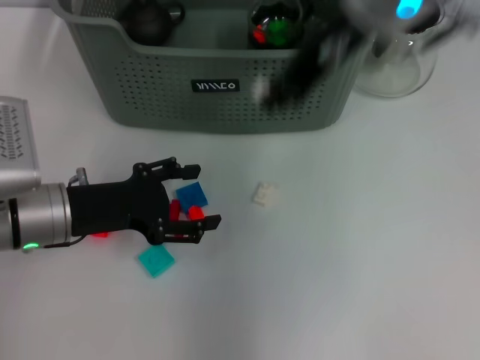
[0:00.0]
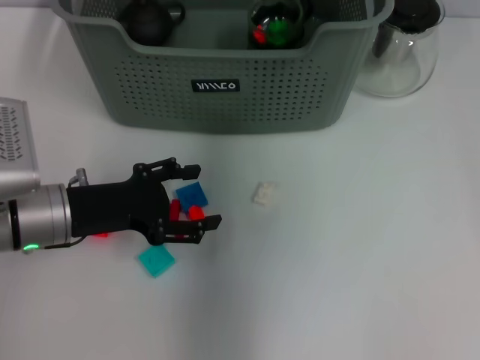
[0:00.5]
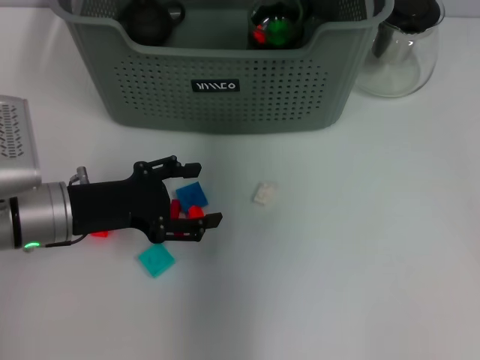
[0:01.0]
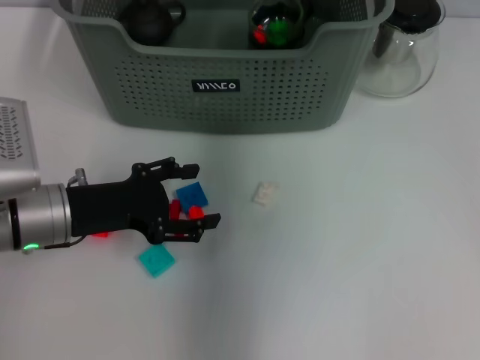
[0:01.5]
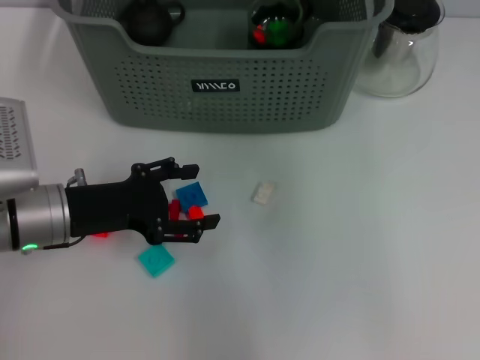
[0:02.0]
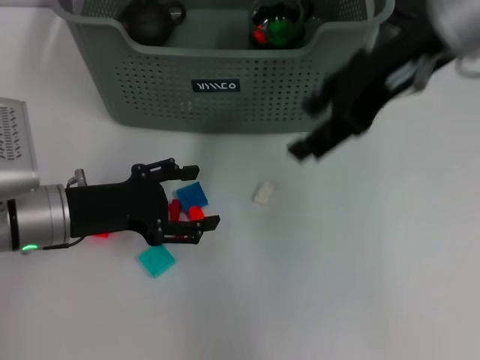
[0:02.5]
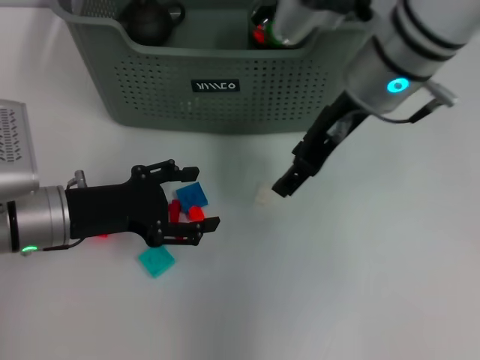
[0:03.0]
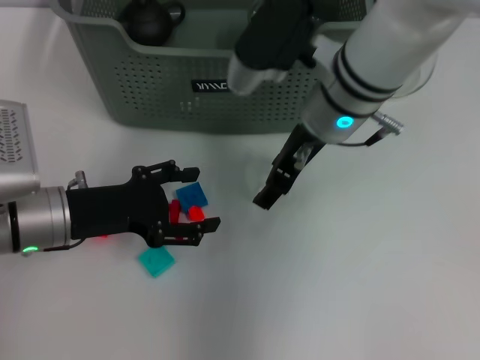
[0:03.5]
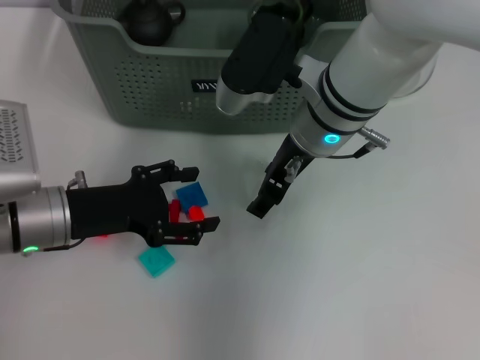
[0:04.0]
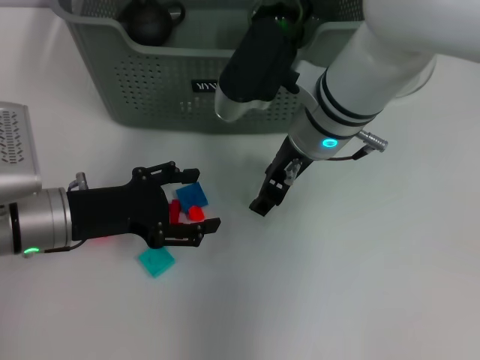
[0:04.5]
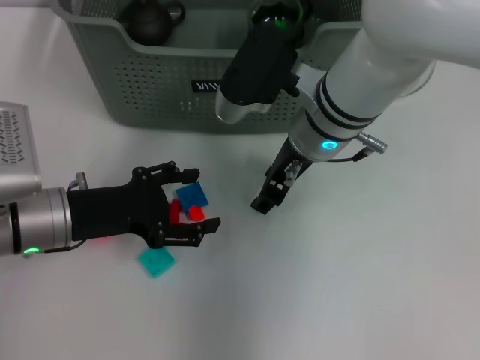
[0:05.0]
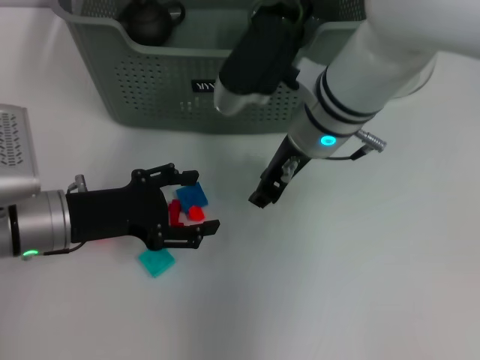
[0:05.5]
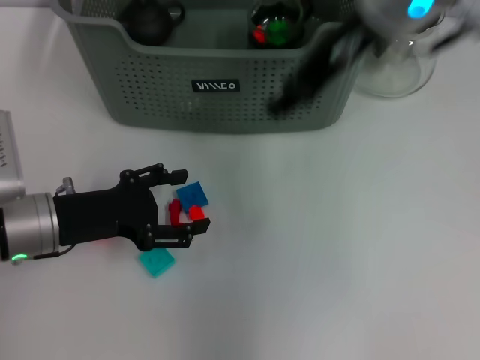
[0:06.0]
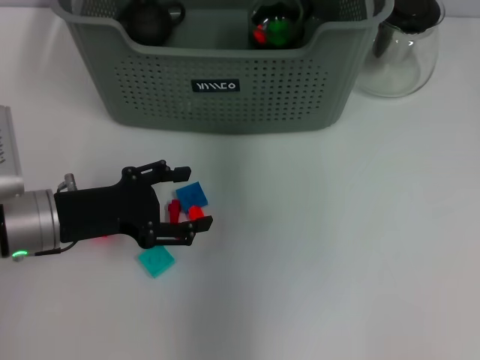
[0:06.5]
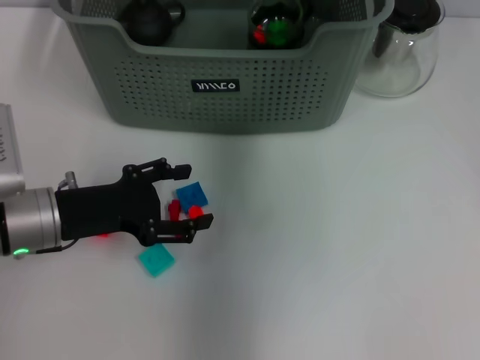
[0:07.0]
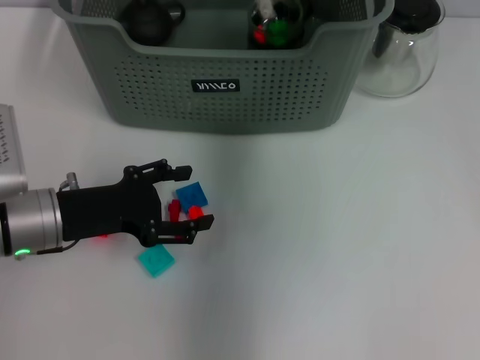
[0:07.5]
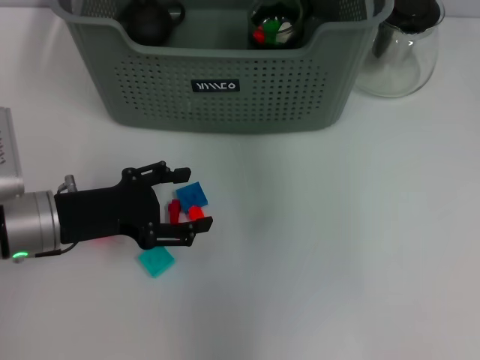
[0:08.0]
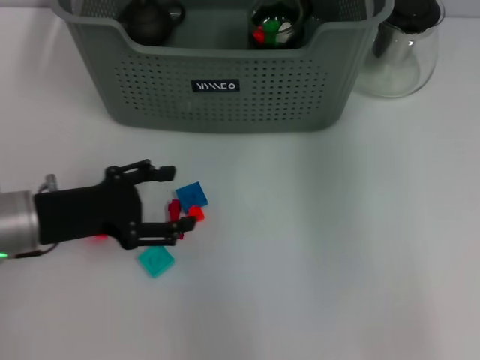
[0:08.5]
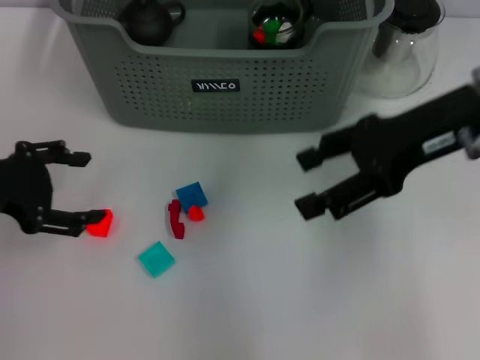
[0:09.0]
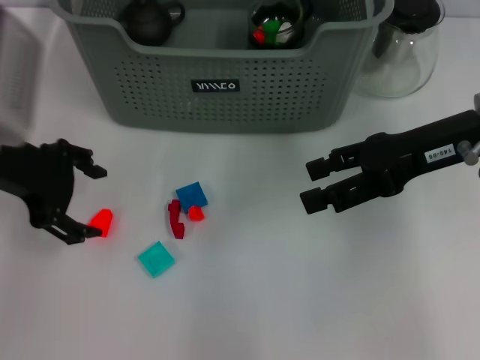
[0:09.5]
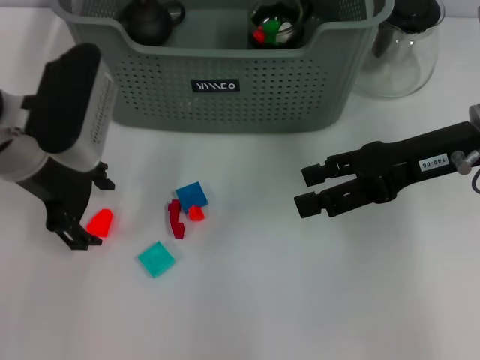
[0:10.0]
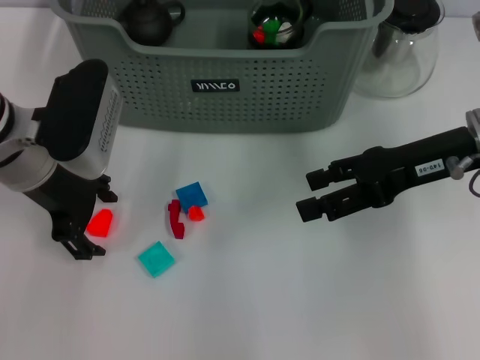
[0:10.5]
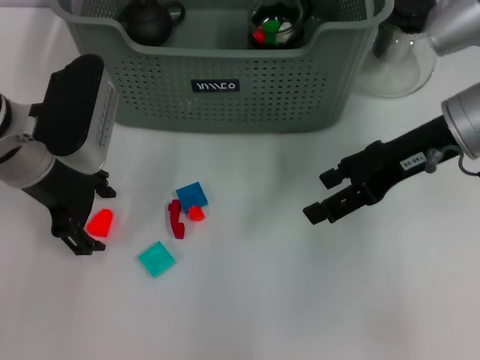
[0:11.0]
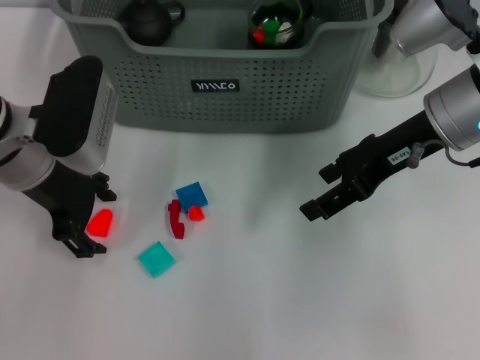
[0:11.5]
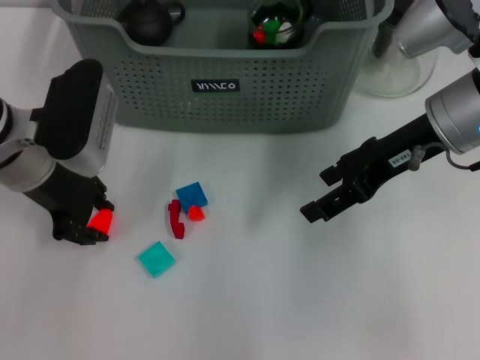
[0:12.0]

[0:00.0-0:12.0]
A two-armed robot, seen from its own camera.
Task of the whole recording: pick up the teacup on the table and place it into the storage bin, pick up the block on the table and place it into the storage bin.
Step, 0:00.0 to 0:01.0: Place the white block in the storage box with right gripper.
Step, 0:01.5 to 0:04.5: Grasp the white block with right gripper.
Step, 0:05.0 to 0:07.0: Place the white block in the storage box with right gripper.
Step, 0:08.0 to 0:12.0: Grasp the orange block with left gripper.
0:00.0 to 0:02.0: The right gripper shifts about 10 cm to the right and upward, goes forward and returns, some 10 cm each way, and opens its fingers.
0:02.0 to 0:04.0: The right gripper goes about 20 cm downward and to the left.
0:04.0 to 0:06.0: The right gripper goes approximately 15 cm upward, and closes.
0:06.0 to 0:08.0: The right gripper moves up and down over roughly 10 cm, changing direction 2 times.
0:08.0 to 0:10.0: The left gripper heads upward and forward, covering about 10 cm. The right gripper moves downward, backward and to the right, approximately 20 cm, and opens up.
0:10.0 to 0:12.0: The left gripper closes up.

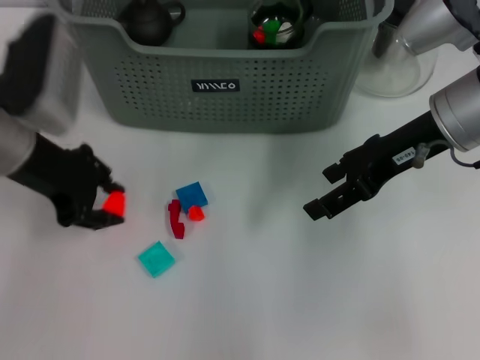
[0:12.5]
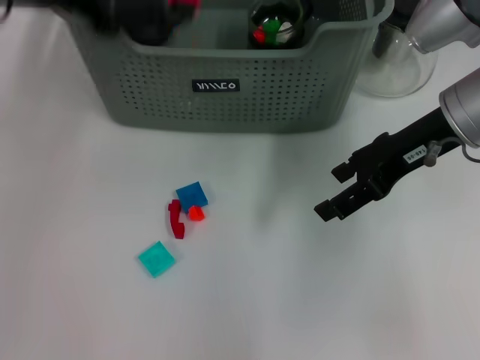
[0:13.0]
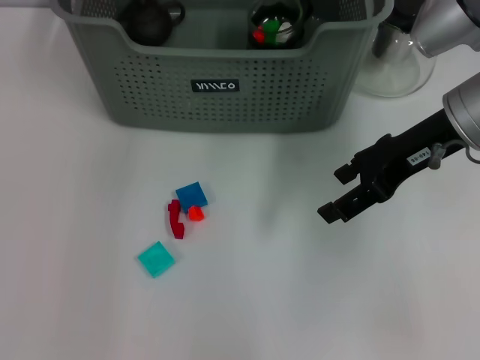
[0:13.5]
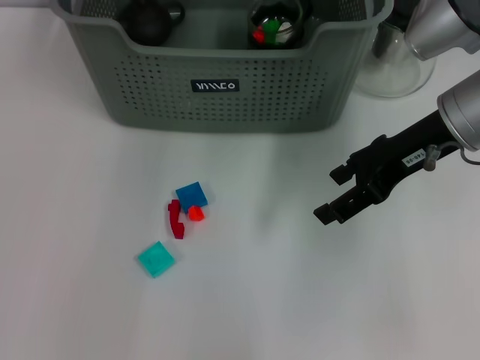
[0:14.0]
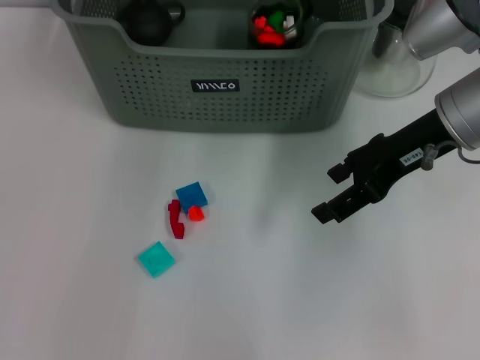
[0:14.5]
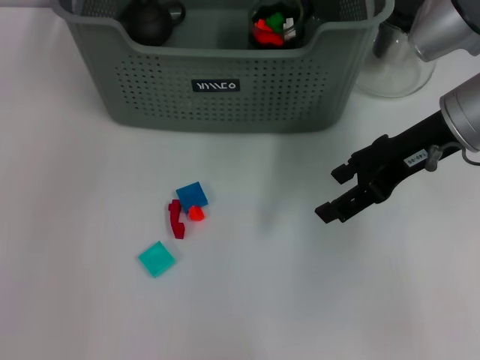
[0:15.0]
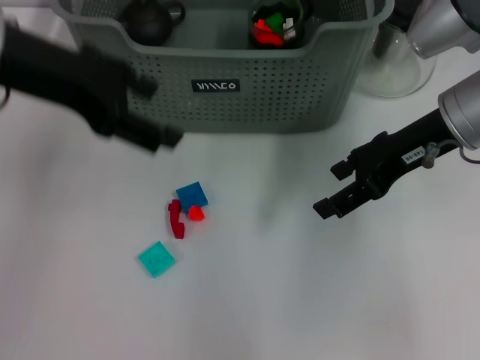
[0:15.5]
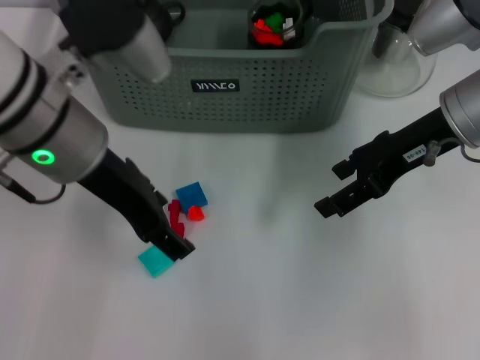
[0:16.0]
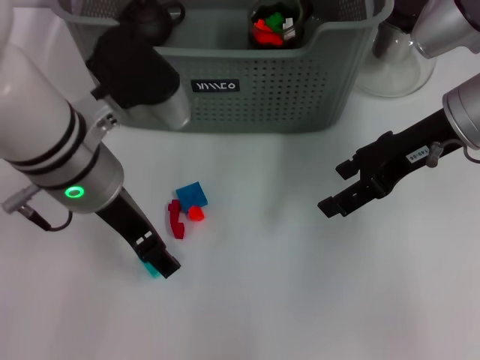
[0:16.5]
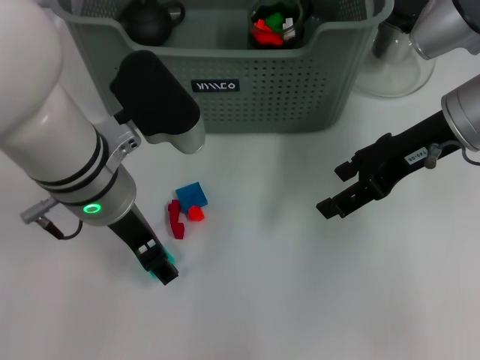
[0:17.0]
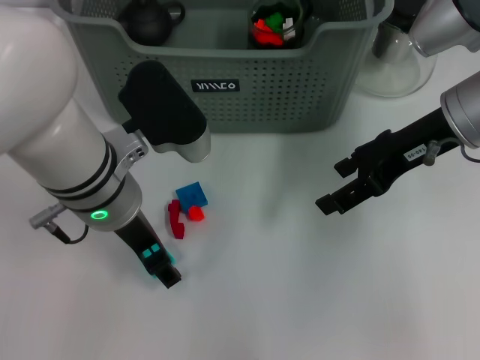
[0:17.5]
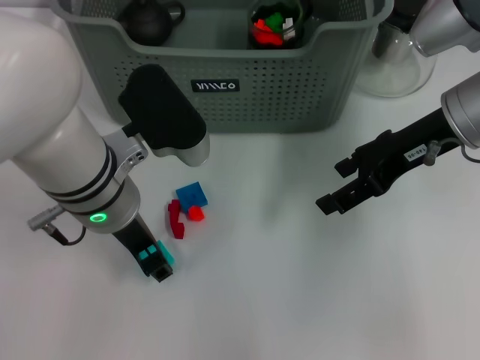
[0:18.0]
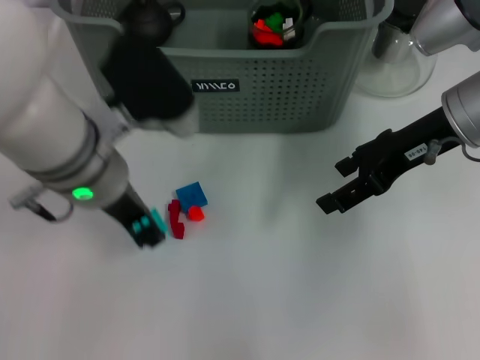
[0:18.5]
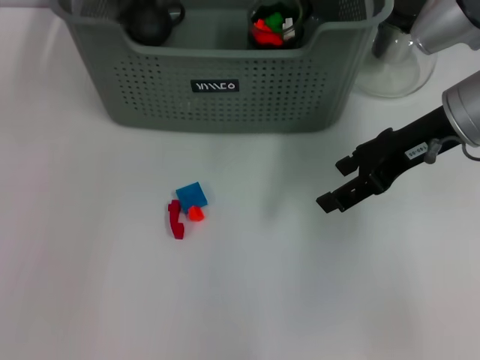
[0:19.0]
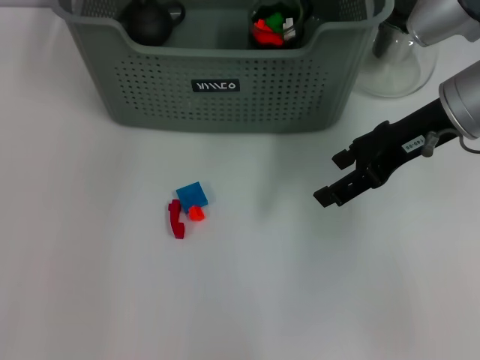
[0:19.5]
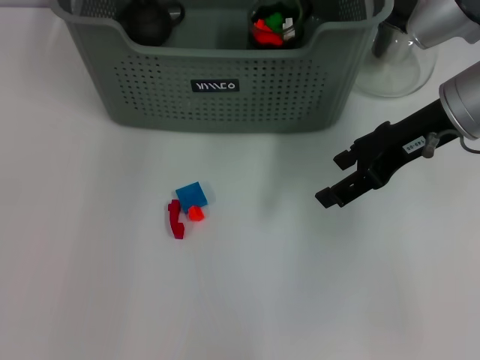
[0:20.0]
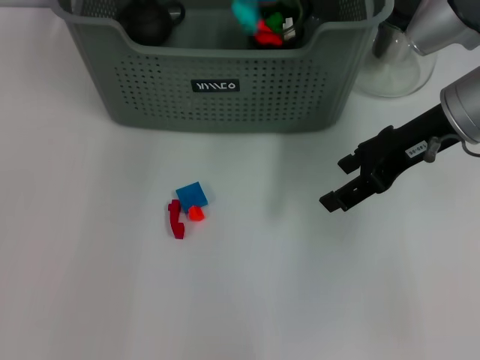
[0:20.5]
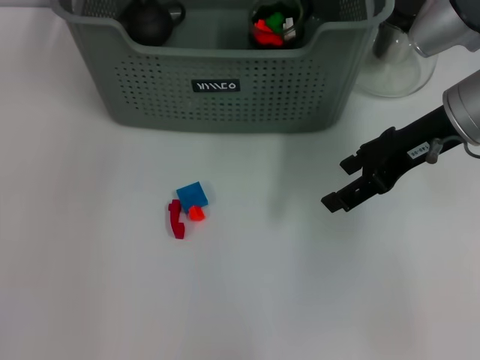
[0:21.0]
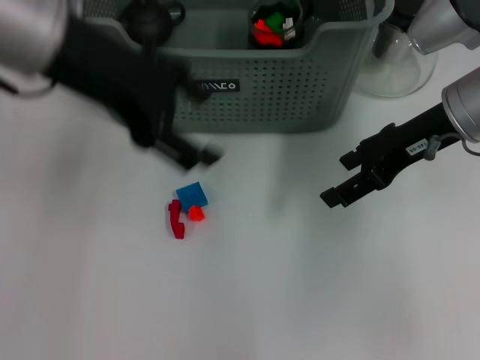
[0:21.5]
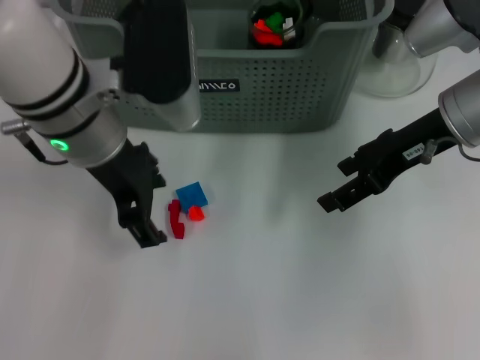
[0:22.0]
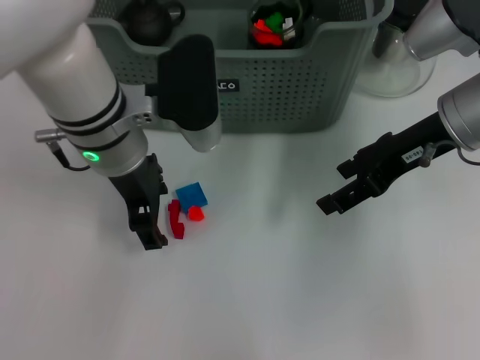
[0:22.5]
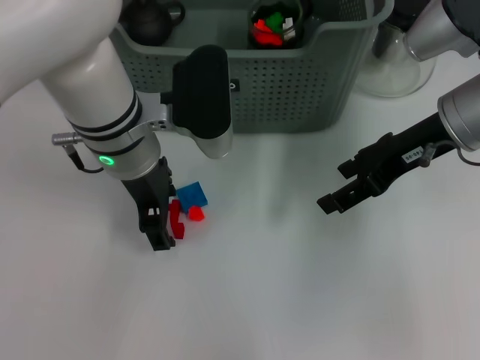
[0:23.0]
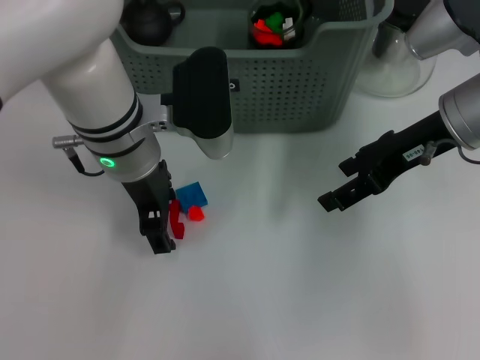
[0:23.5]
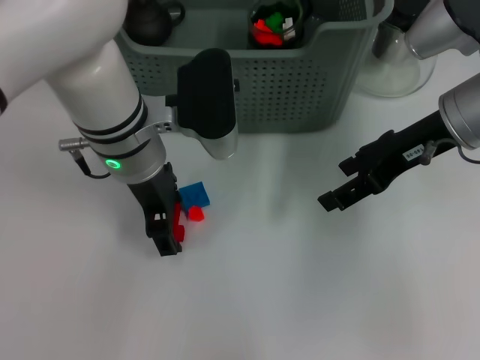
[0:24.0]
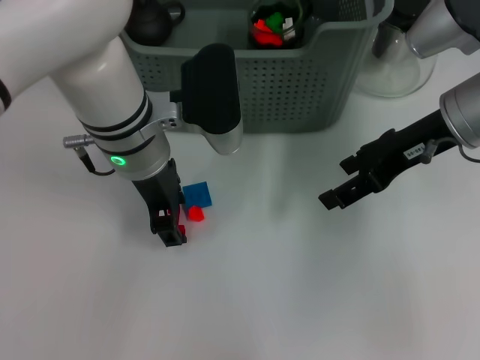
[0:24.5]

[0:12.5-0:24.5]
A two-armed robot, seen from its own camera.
Task of the whole recording: pick up the teacup on the table and place it into the storage bin, pick up the block on the table and place it into the storage bin.
Step, 0:12.5 to 0:14.0: Place the orange block in the storage box with left gripper.
Step, 0:14.5 to 0:18.0: Grasp the light blue block with left gripper.
Step, 0:18.5 to 0:20.5: Place the light blue block in the storage box with left gripper.
0:12.5 to 0:14.5: The left gripper moves forward, to the right and upward, about 20 cm.
0:14.5 to 0:16.5: The left gripper travels backward and downward by about 20 cm.
0:16.5 to 0:18.5: The left gripper closes.
0:18.5 to 0:20.5: The left gripper travels forward and upward by approximately 20 cm.
0:20.5 to 0:22.5: The left gripper goes approximately 15 cm backward and downward.
0:22.5 to 0:24.5: There are only small adjustments of the grippers.

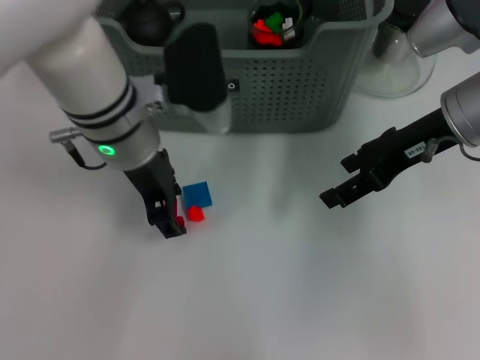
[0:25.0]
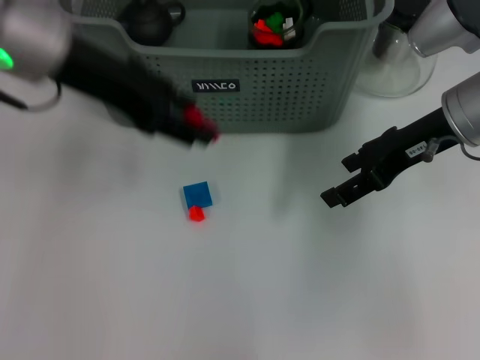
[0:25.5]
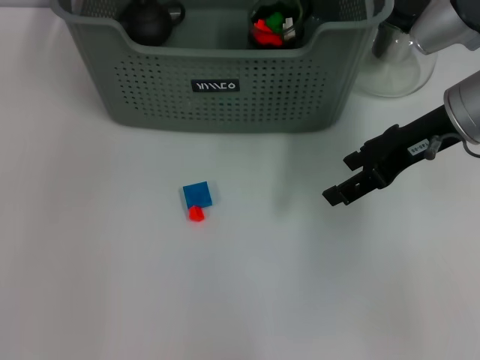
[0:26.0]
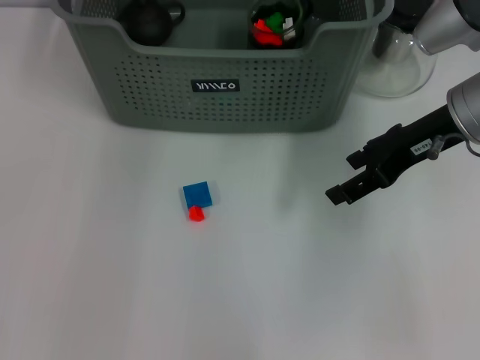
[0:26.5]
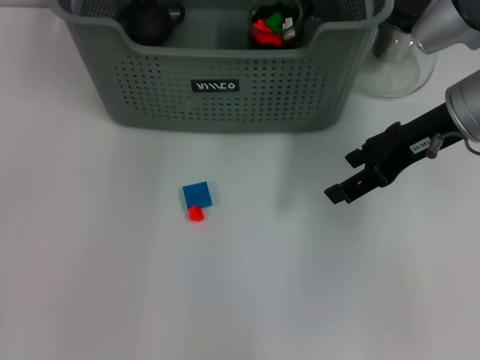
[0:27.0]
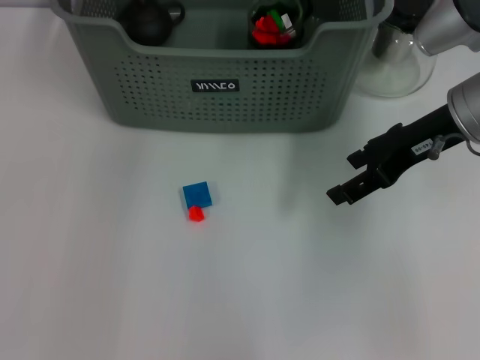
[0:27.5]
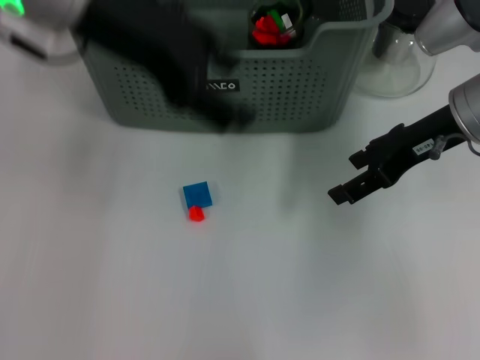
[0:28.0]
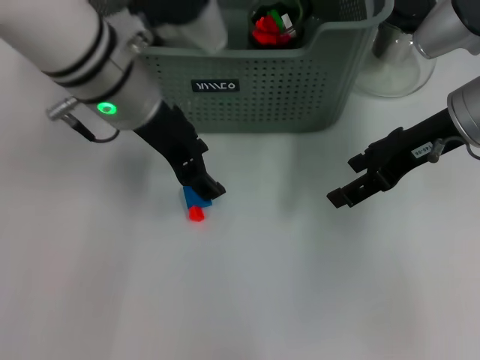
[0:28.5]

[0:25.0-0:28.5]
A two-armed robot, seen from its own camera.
Task of the whole recording: pick up the teacup on the table and place it into the storage bin, pick up the block on the table and place it into the storage bin.
Step, 0:25.0 to 0:27.0: Place the red block in the storage box with left gripper.
0:25.0 to 0:27.0: The left gripper heads forward and upward, covering roughly 20 cm.
0:27.0 to 0:28.5: The left gripper heads backward and downward, covering approximately 15 cm.
